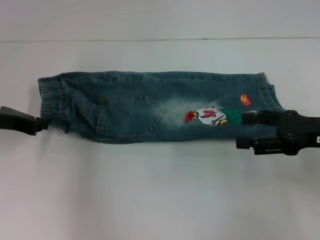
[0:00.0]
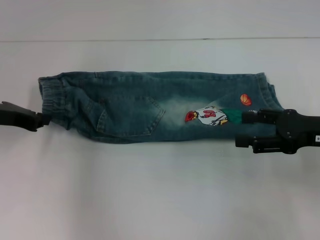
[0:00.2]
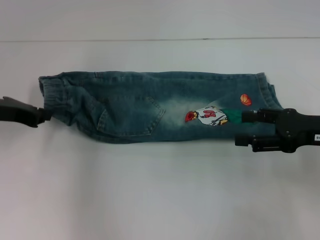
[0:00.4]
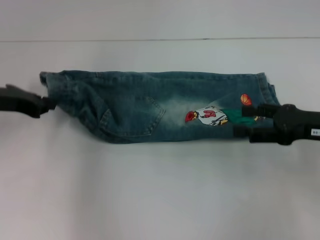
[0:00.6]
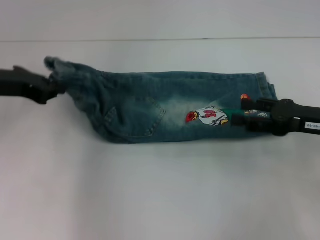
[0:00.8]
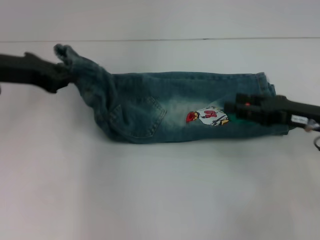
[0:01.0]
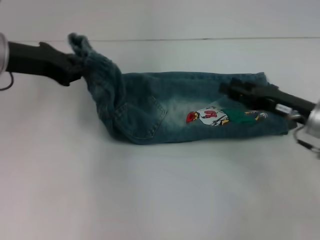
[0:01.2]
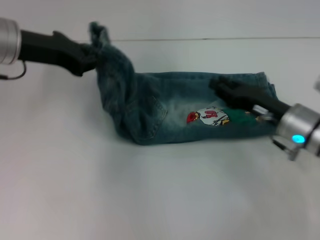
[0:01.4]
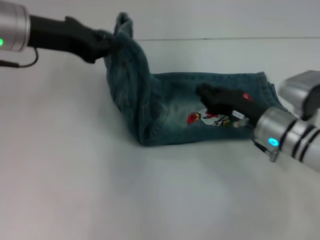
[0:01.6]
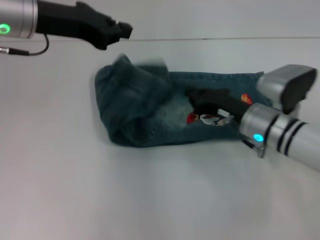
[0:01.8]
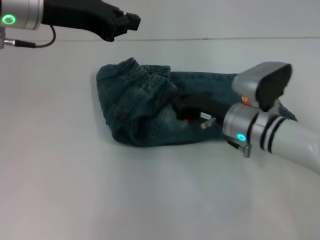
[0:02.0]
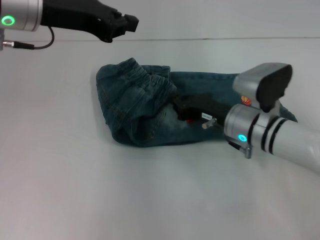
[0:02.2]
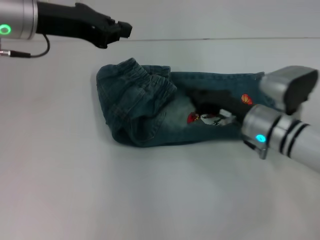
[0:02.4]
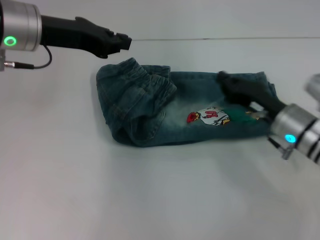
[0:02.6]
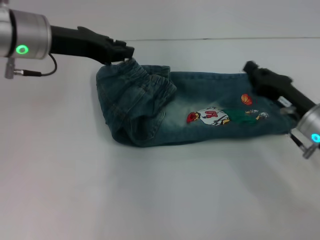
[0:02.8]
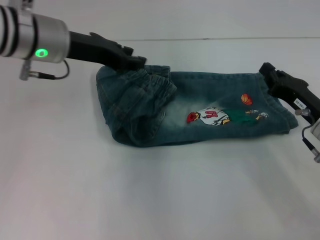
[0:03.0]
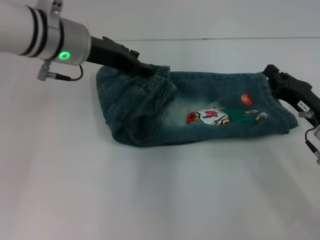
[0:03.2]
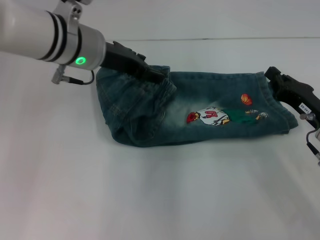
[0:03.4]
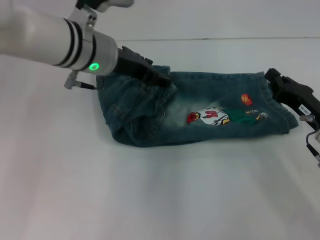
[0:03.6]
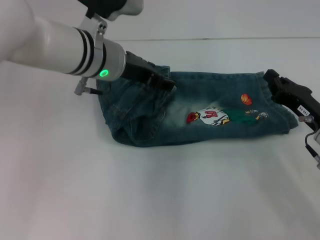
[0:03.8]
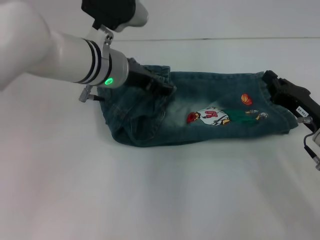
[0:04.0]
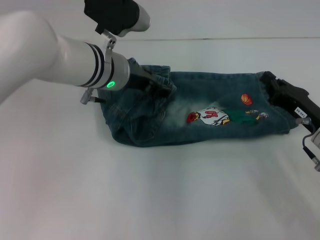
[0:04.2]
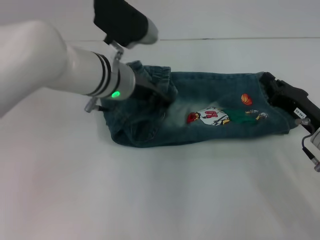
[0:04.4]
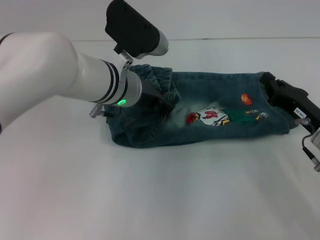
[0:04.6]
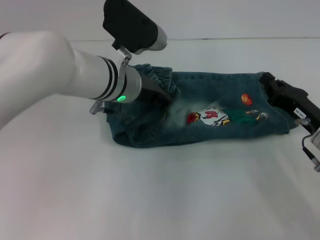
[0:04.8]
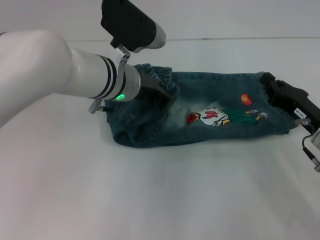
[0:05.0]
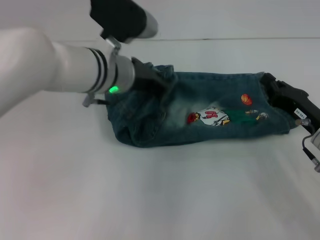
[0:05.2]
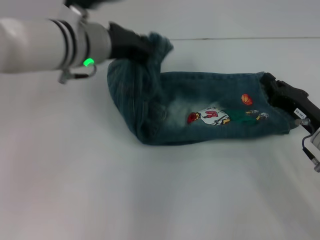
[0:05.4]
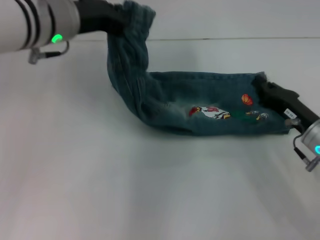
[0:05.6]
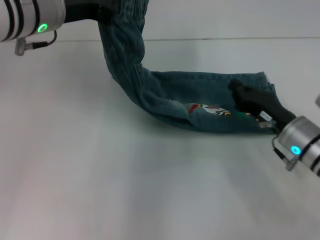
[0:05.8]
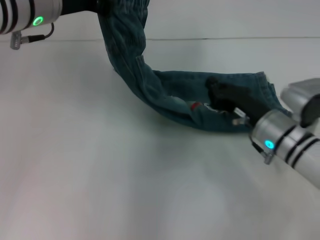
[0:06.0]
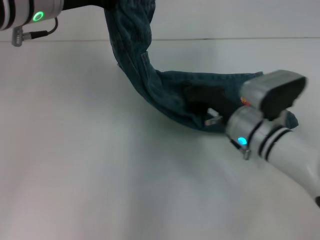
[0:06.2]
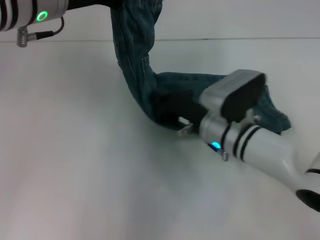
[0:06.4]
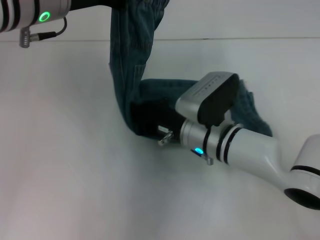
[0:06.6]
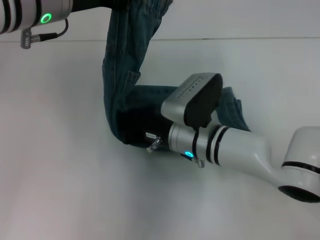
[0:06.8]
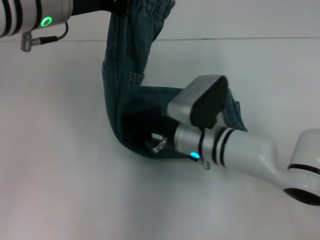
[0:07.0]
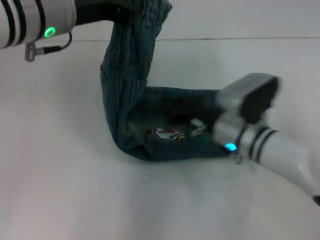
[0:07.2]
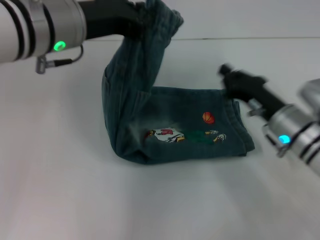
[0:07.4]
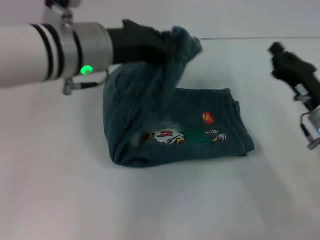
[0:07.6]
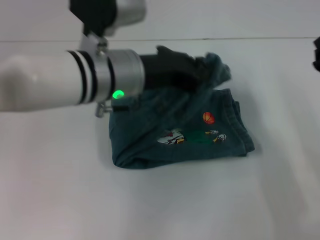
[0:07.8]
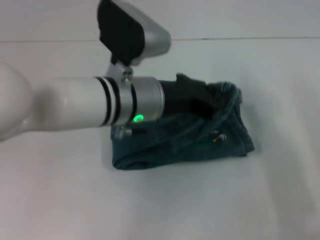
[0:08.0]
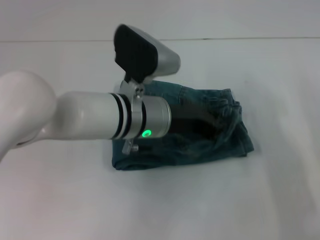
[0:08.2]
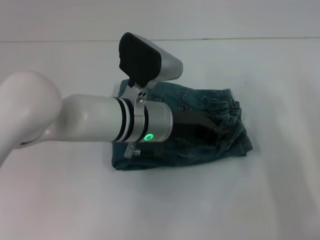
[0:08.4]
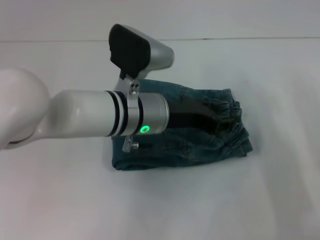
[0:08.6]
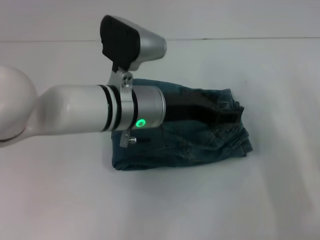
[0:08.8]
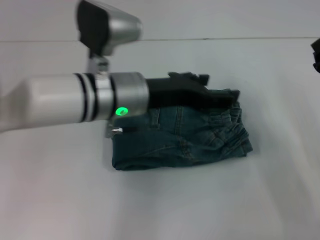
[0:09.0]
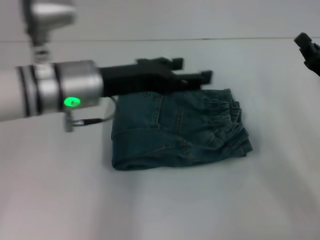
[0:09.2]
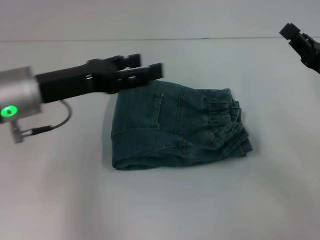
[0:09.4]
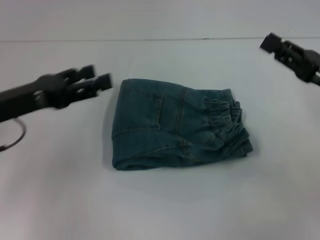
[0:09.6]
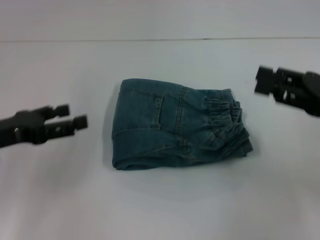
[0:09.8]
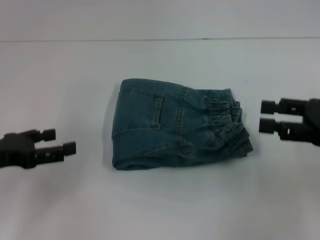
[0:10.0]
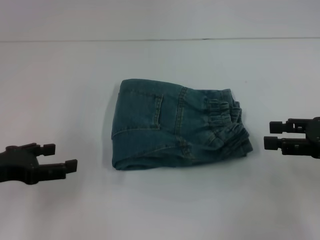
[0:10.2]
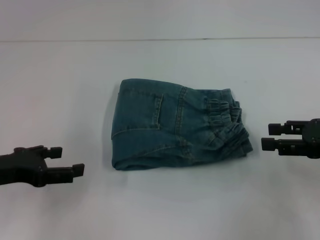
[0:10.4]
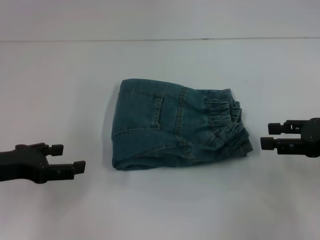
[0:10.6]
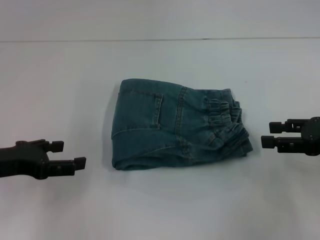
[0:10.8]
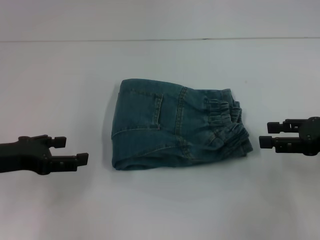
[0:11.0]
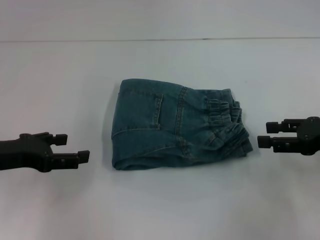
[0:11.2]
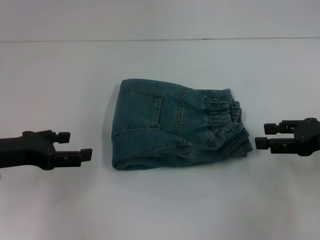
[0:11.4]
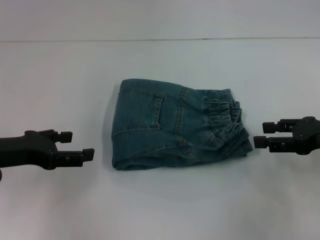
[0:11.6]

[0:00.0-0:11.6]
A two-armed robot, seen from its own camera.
Step, 0:00.0 to 0:07.0: Press the middle of the pants with your right hand.
Step, 0:07.2 to 0:08.8: Fold to the right with your left hand.
0:00.0 to 0:01.4: The left gripper is displaced upward and to the right by roughly 10 cm; the right gripper travels to the left and downward by about 10 cm, and closes.
0:01.4 to 0:02.8: The right gripper reaches some 10 cm to the left, then returns, and closes up.
0:02.8 to 0:04.4: The left gripper heads to the right and downward, covering about 15 cm, and opens its fingers.
0:04.4 to 0:05.8: The left gripper travels upward and to the left by approximately 15 cm, and closes.
0:05.8 to 0:07.2: The right gripper is displaced to the left by approximately 10 cm.
0:07.2 to 0:08.8: The right gripper shifts about 15 cm to the right; the left gripper is displaced downward and to the right by some 15 cm, and opens up.
0:08.8 to 0:10.2: The right gripper shifts roughly 10 cm upward, and opens up, while the left gripper heads to the left, covering some 25 cm, and opens its fingers.
0:10.2 to 0:11.6: The grippers make only small movements.
